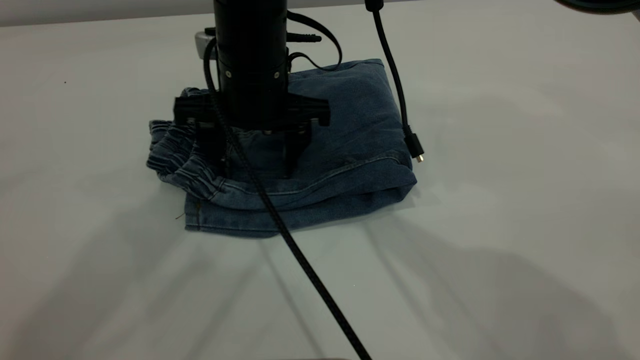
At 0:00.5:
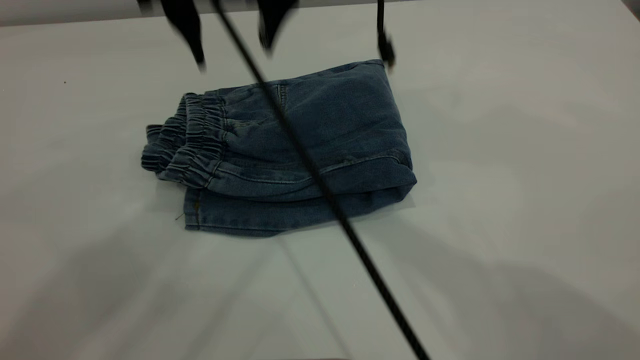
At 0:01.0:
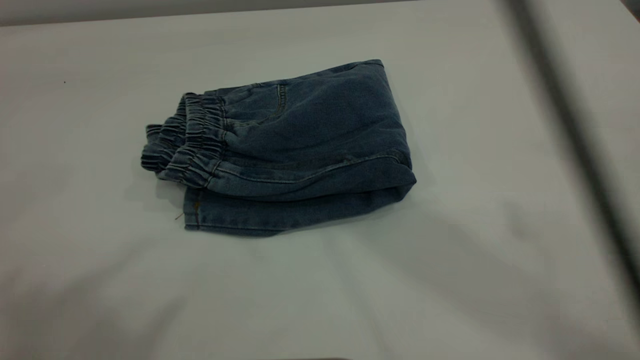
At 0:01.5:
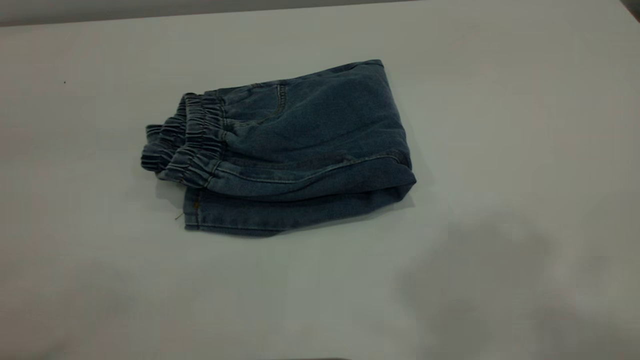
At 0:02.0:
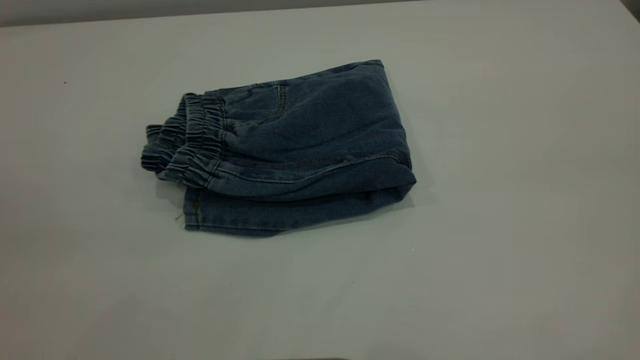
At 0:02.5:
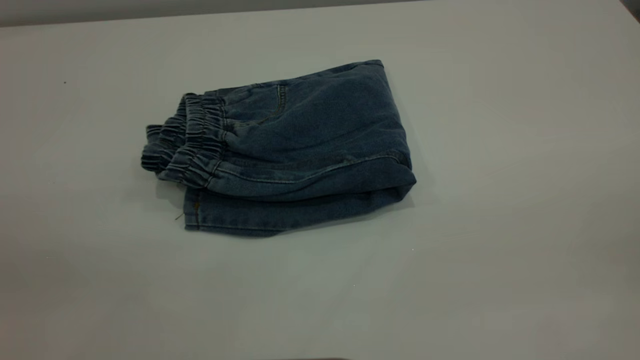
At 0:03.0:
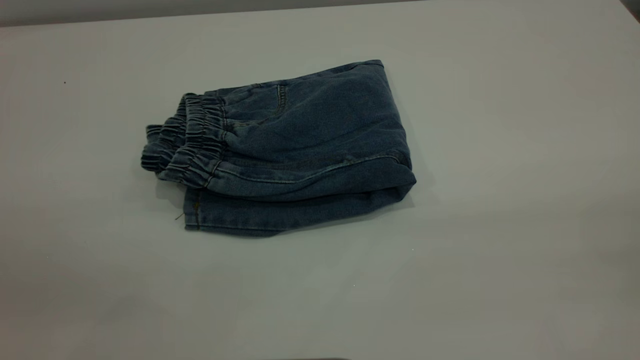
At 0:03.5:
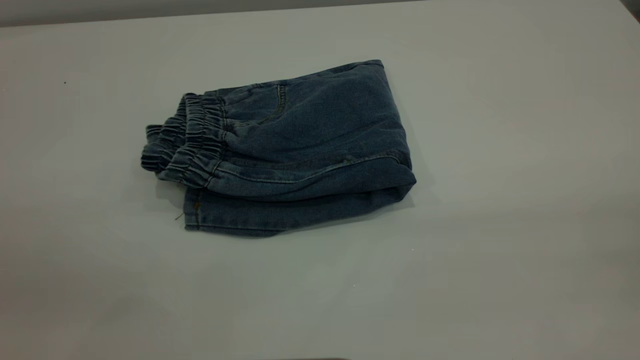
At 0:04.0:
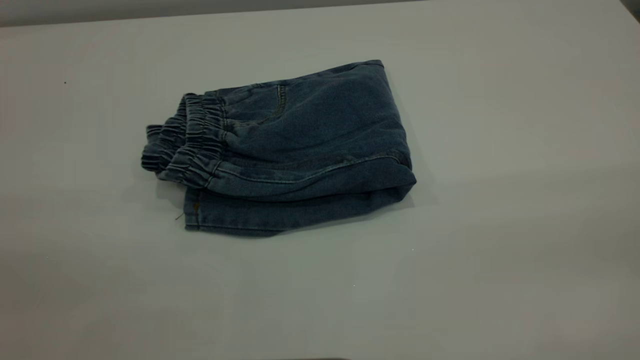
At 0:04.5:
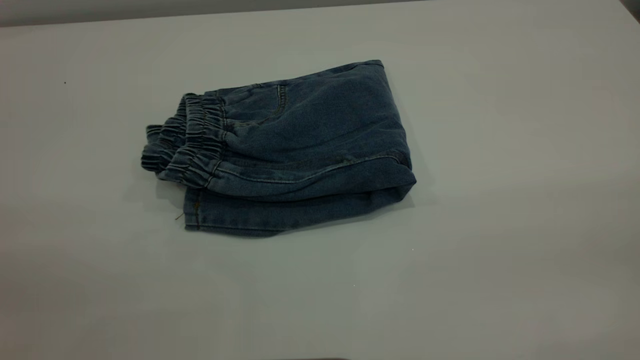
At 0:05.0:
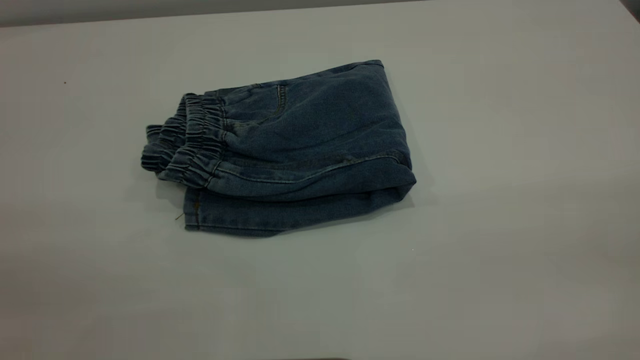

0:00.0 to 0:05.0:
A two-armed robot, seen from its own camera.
0:00.0 to 0:02.5: The right gripper moves backward, to the right and upward, approximately 50 cm. The left gripper moves backward, to the left and downward, about 35 cm.
